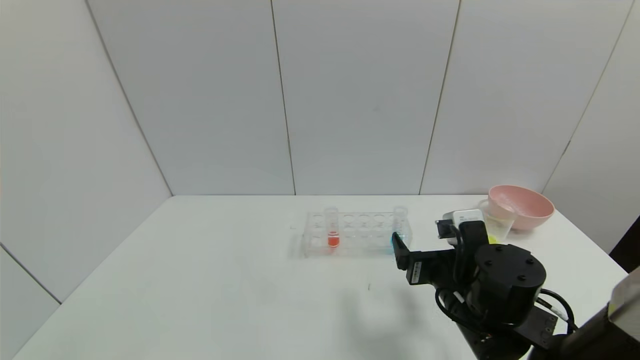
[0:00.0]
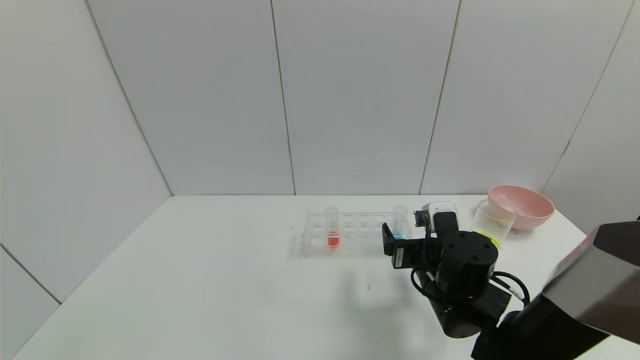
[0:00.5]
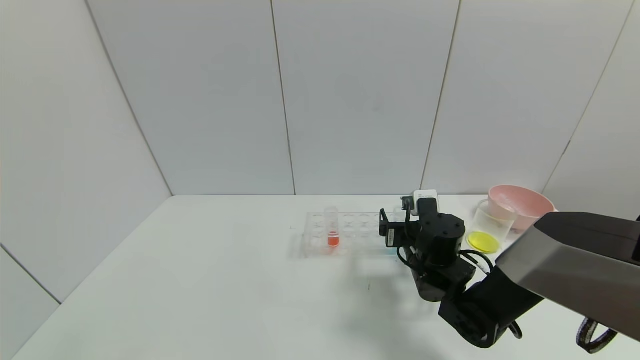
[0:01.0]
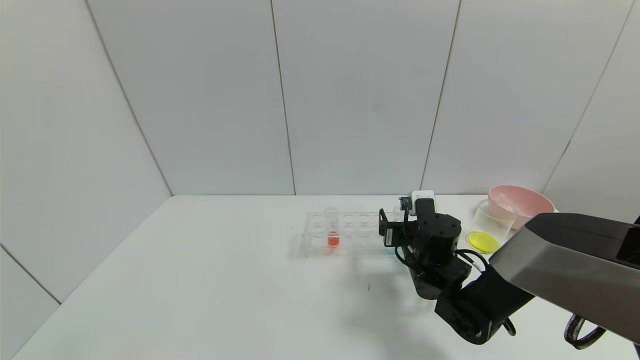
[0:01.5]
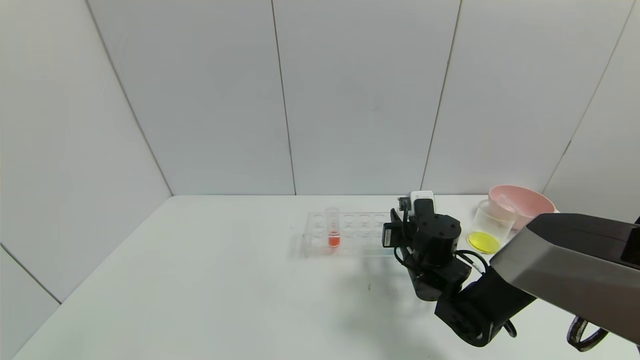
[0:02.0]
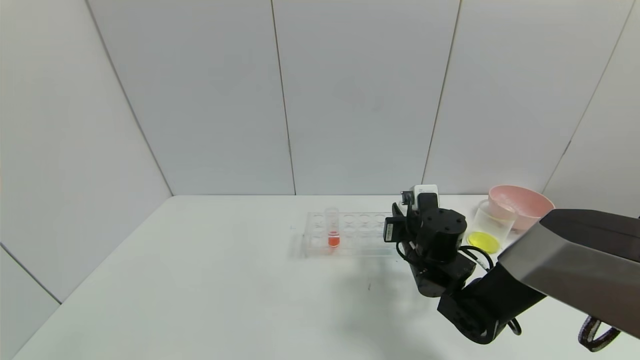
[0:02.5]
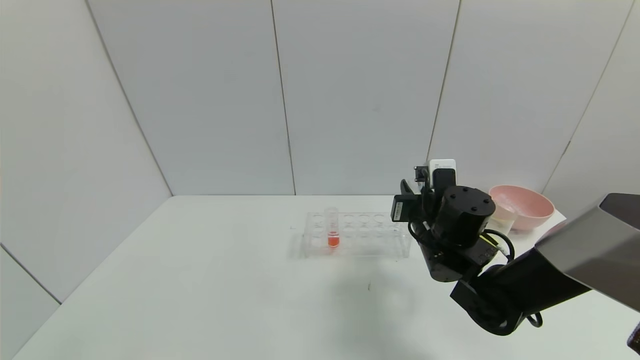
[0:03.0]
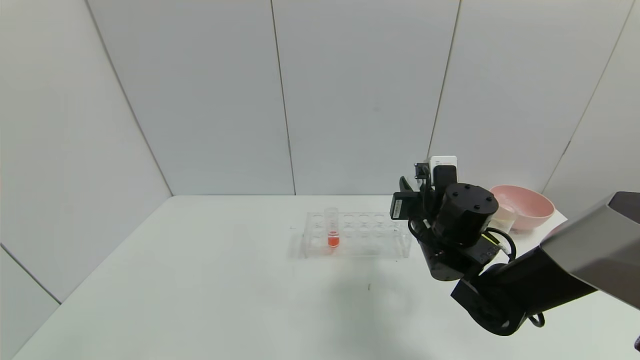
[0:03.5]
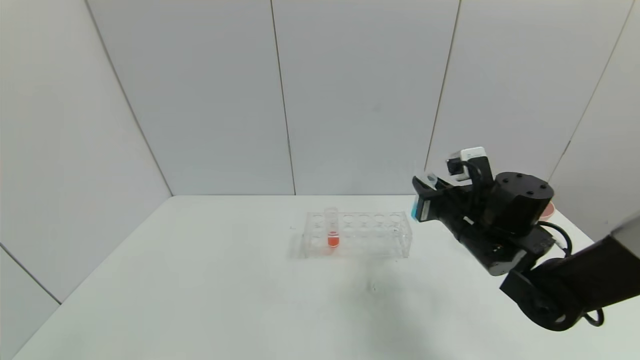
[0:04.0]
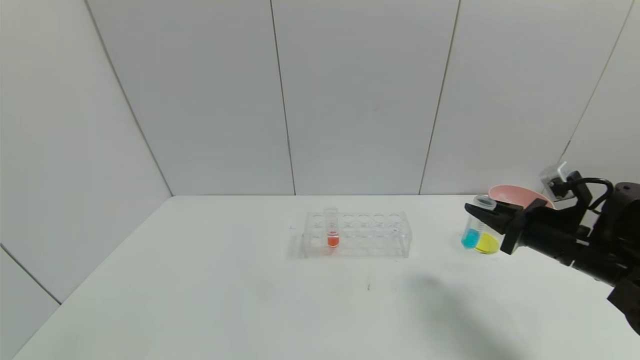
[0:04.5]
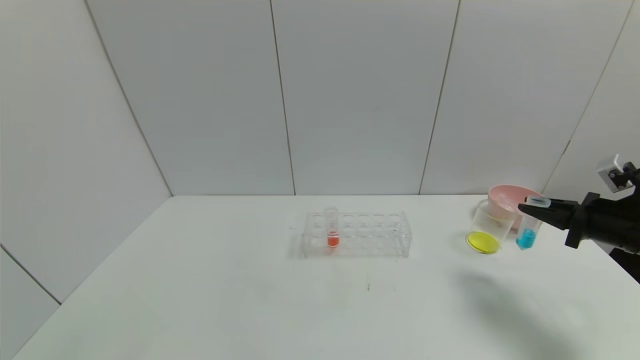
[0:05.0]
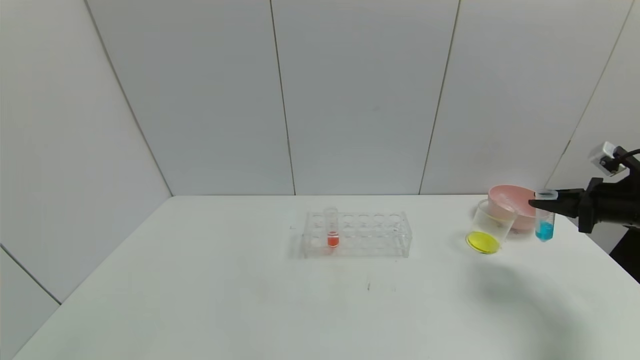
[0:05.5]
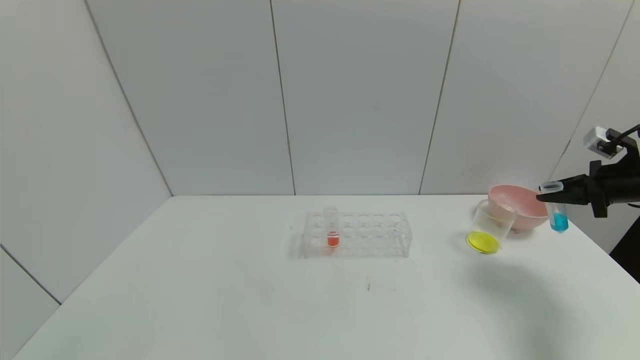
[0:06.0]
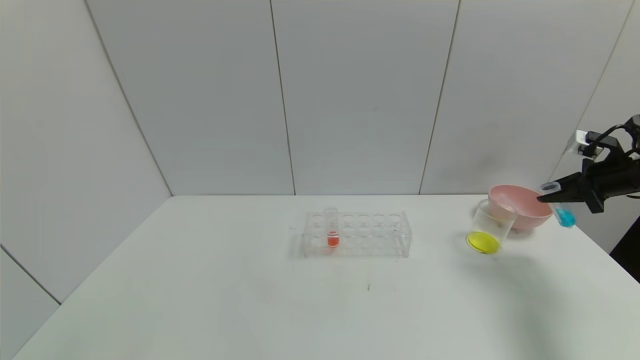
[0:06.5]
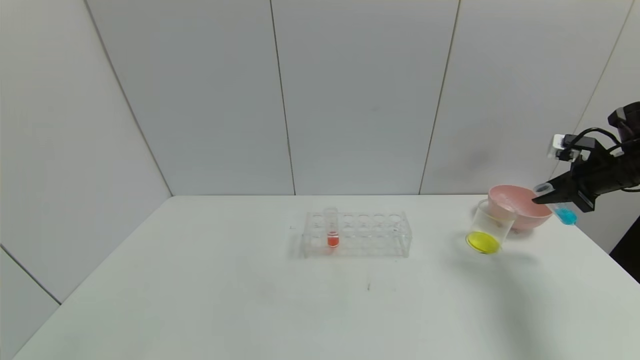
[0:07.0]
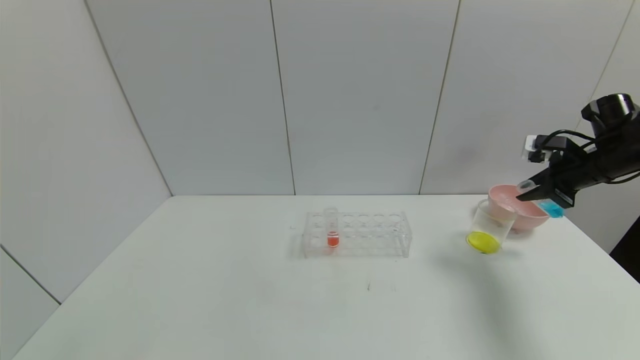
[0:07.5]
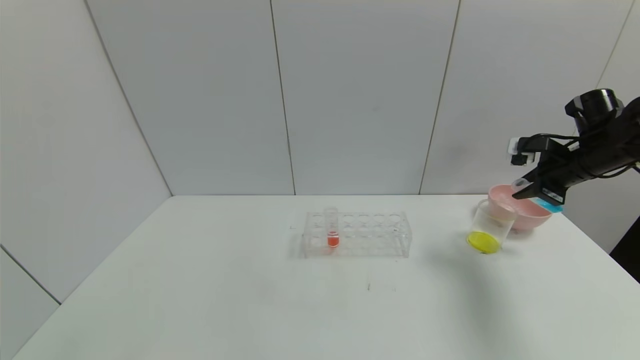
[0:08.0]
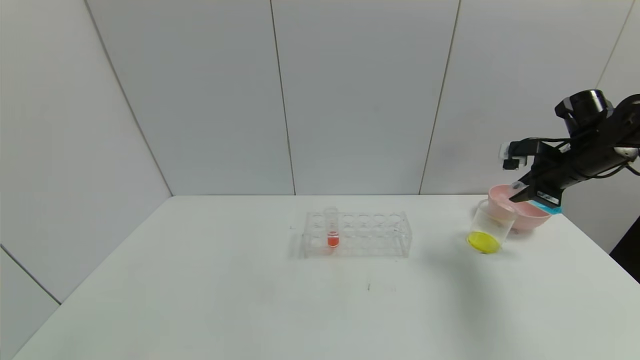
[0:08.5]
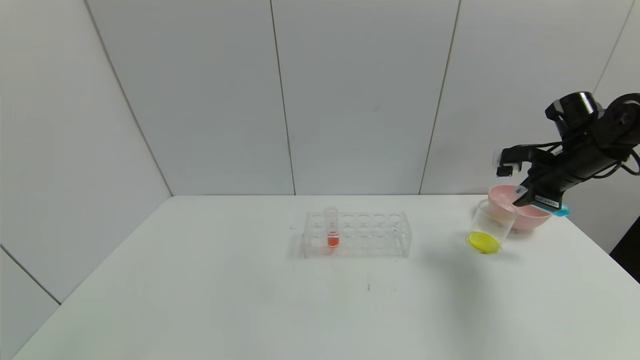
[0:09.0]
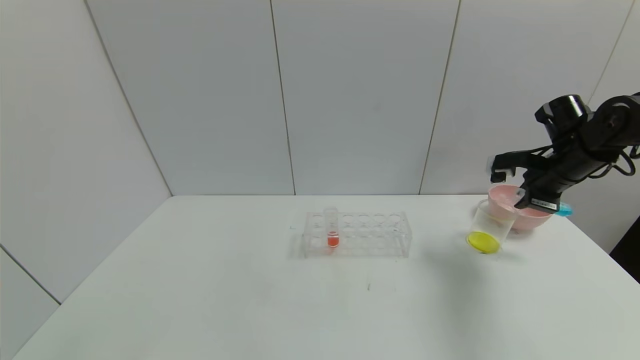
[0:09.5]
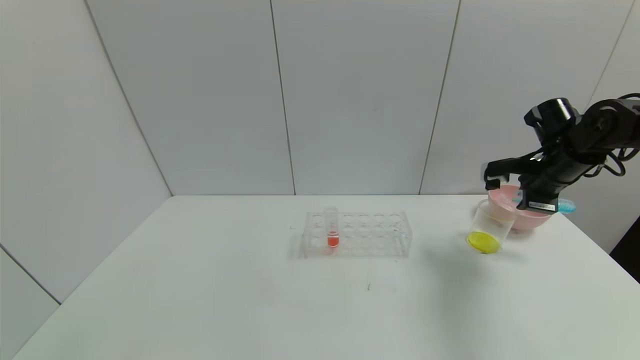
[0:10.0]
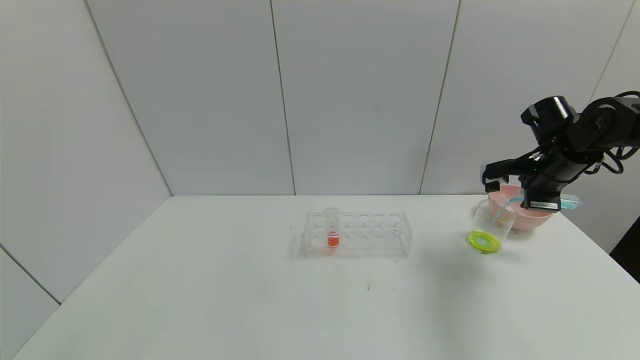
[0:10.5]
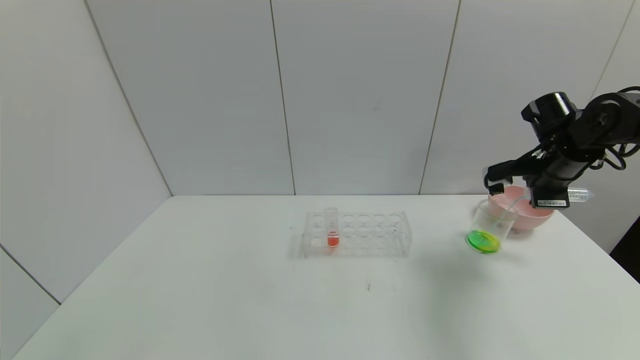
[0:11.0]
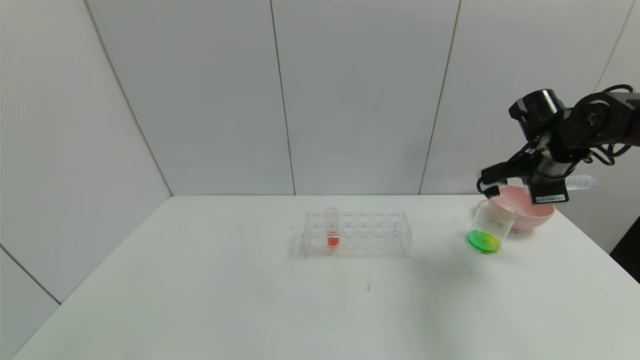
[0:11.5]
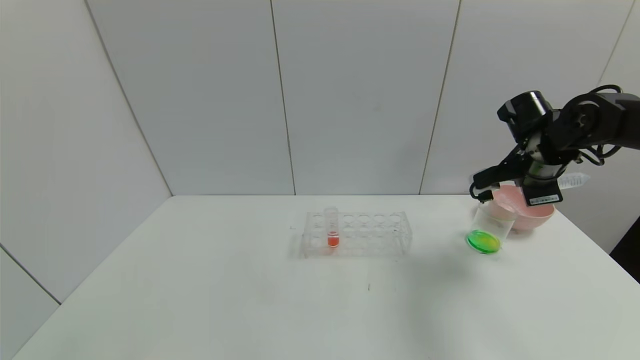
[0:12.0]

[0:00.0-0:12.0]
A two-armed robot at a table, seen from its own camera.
Task of the whole recording: pick up the test tube with yellow pigment and the test tube with blue pigment by grippers and pour them into the beaker.
Step, 0:00.0 to 0:04.0: Pick up the test tube containing the blue reagent with right gripper.
0:00.0 to 0:02.0: The right gripper is displaced forward by about 10 cm, and closes.
0:02.0 to 0:04.0: The right gripper heads upward and to the right, covering approximately 10 cm.
0:04.0 to 0:06.0: The right gripper travels to the right by roughly 30 cm.
0:06.0 to 0:08.0: The right gripper shifts roughly 10 cm to the left and forward.

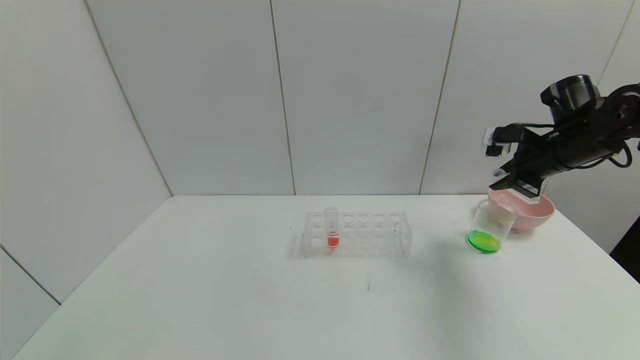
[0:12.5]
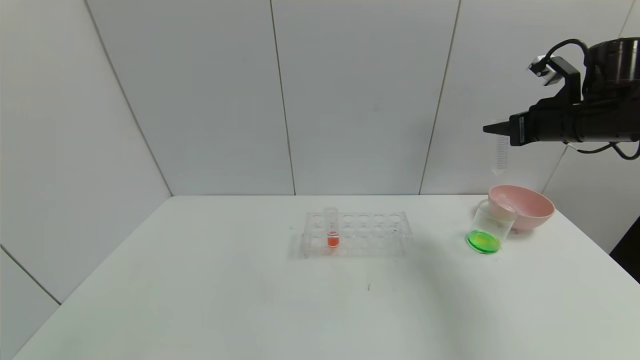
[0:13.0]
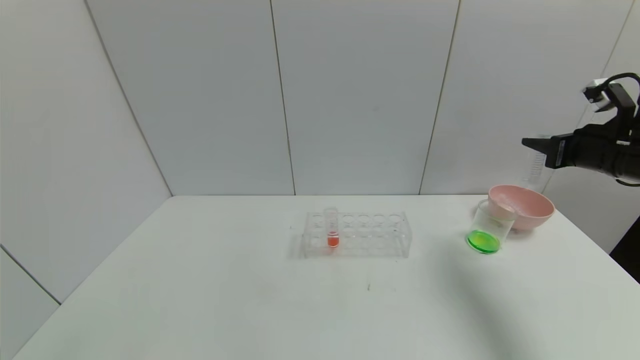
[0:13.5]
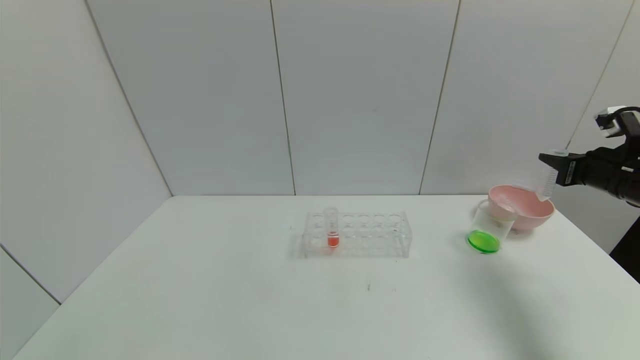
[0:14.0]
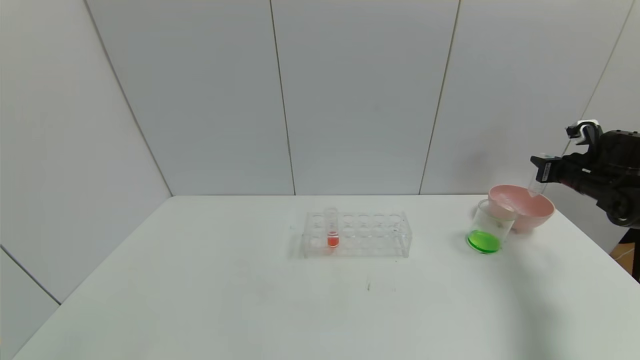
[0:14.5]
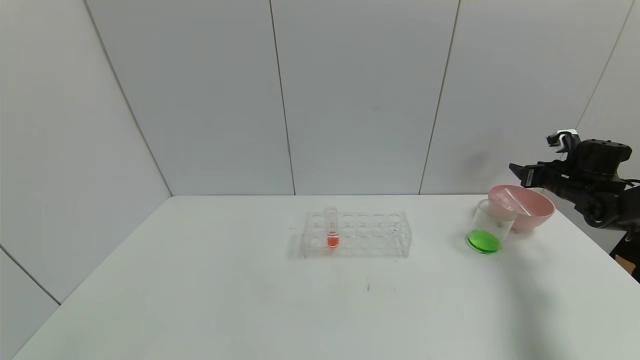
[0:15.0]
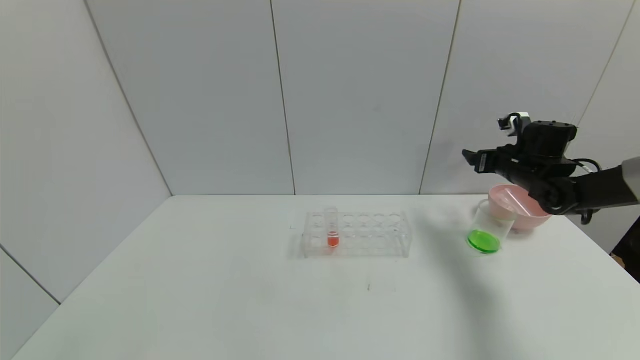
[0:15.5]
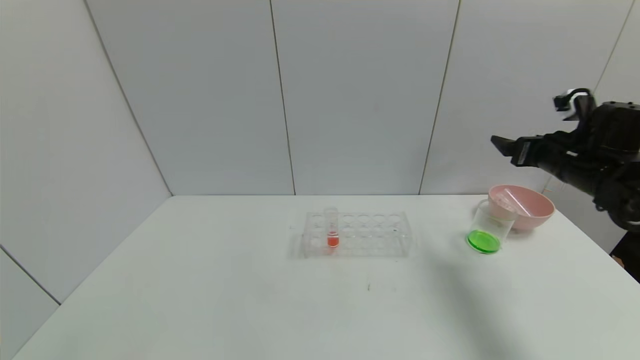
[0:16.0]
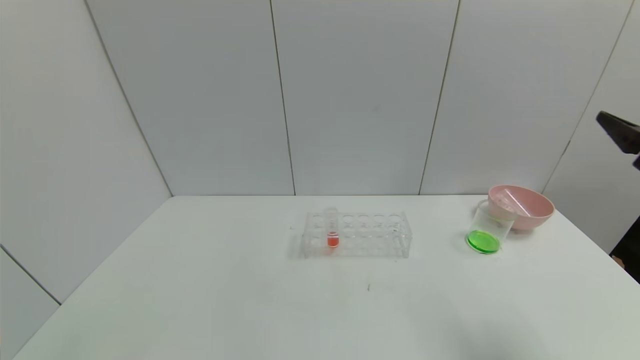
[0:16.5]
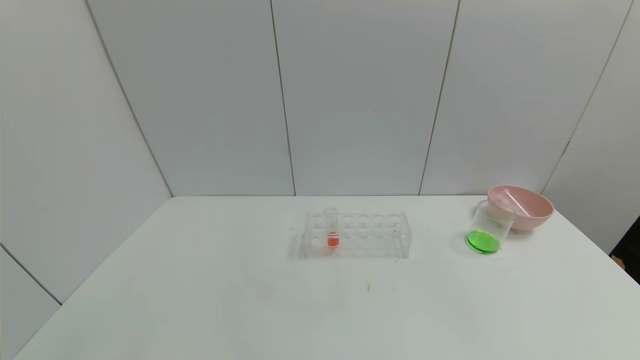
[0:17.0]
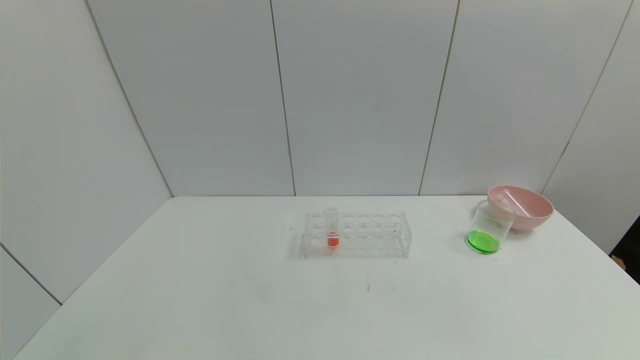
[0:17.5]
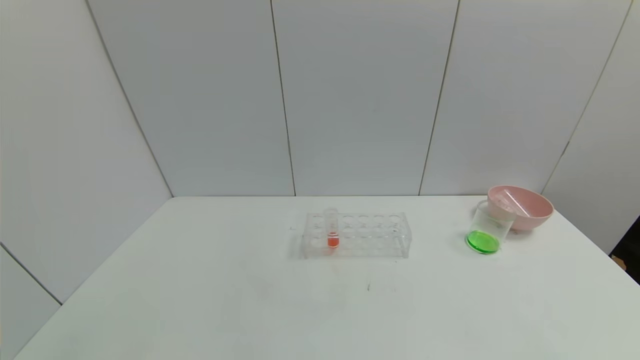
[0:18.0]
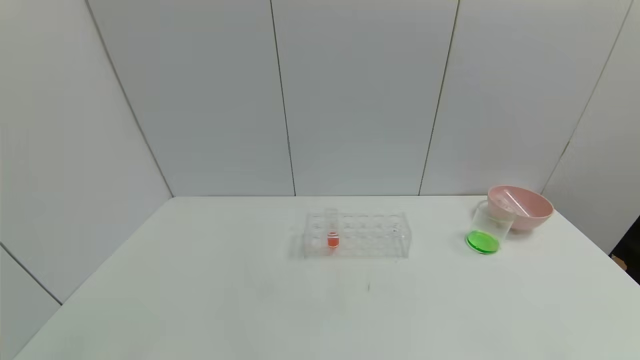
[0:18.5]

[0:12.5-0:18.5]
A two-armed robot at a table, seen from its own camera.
Task of the whole recording: pick up the test tube with yellow pigment and the test tube with blue pigment by grippers and pour them into the beaker.
Step, 0:14.0 to 0:16.0: Place the test tube into the bowl with right gripper.
0:12.5 to 0:14.5: The right gripper travels to the right and downward by roughly 15 cm.
0:14.5 to 0:16.5: The right gripper travels backward, upward and to the left by some 25 cm, and opens.
0:16.5 to 0:18.5: The right gripper travels backward and downward by some 30 cm.
